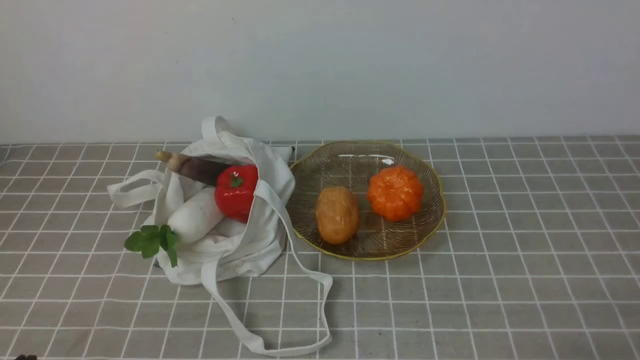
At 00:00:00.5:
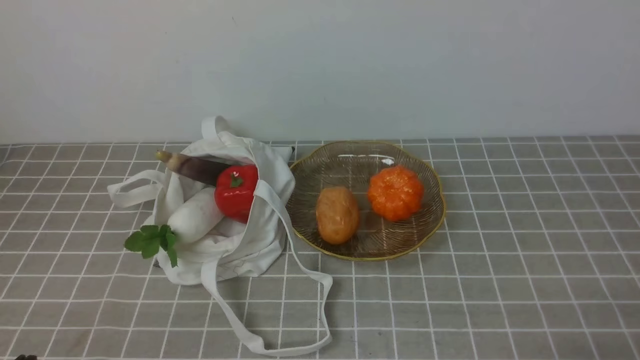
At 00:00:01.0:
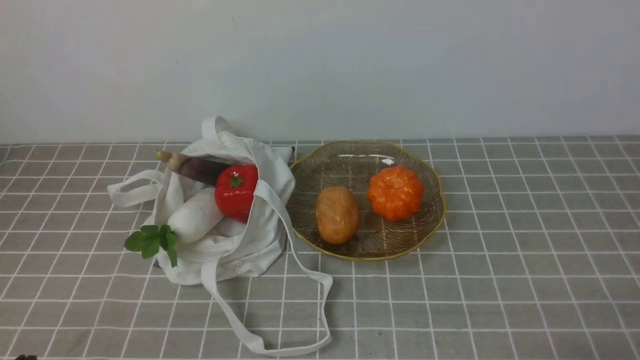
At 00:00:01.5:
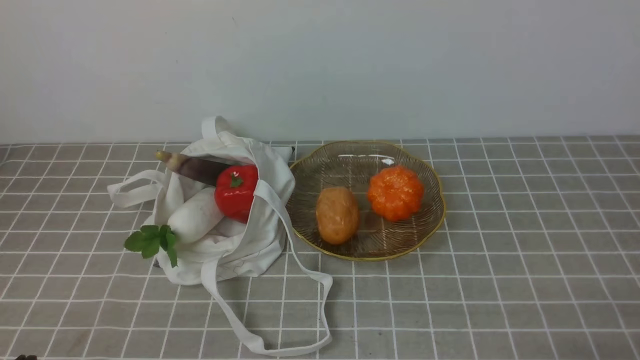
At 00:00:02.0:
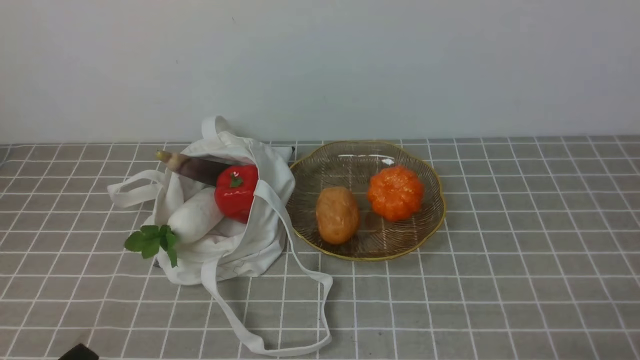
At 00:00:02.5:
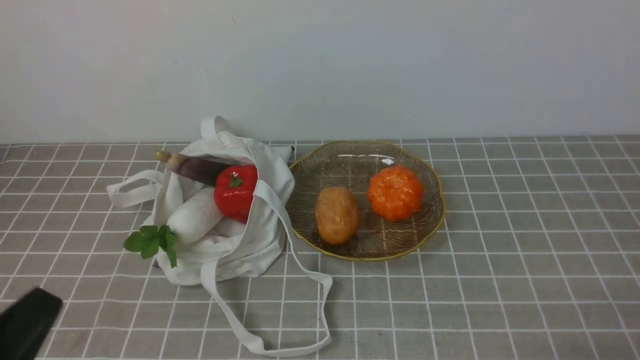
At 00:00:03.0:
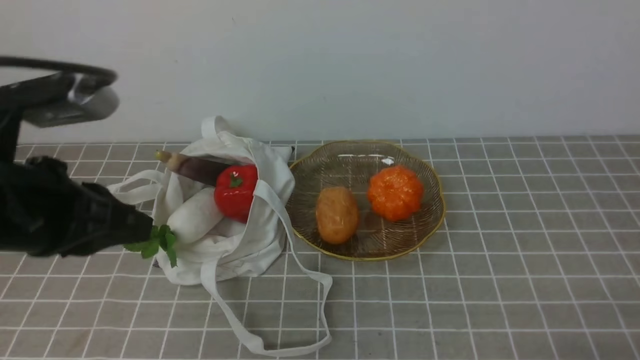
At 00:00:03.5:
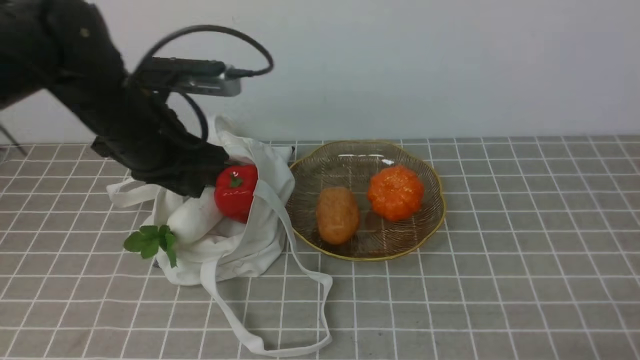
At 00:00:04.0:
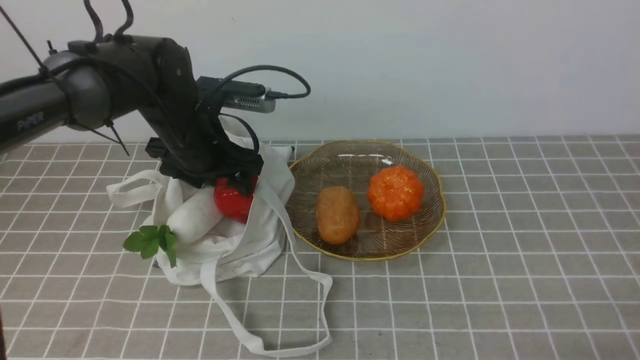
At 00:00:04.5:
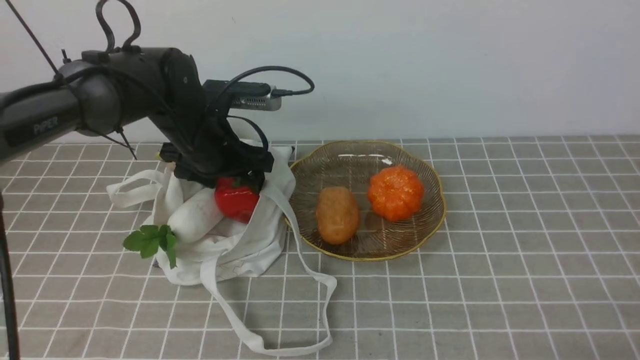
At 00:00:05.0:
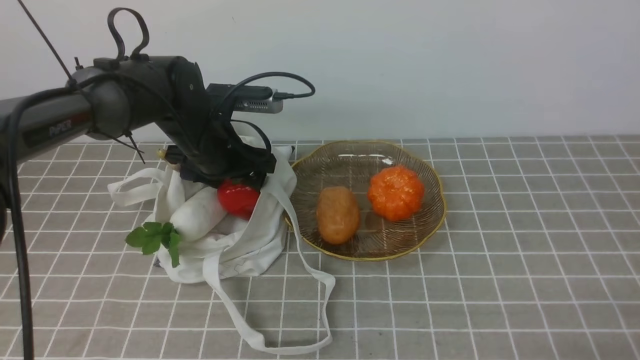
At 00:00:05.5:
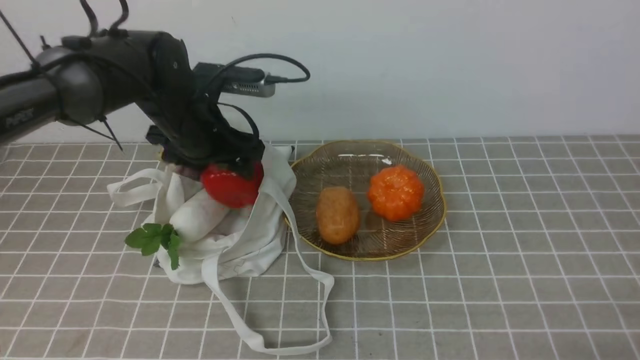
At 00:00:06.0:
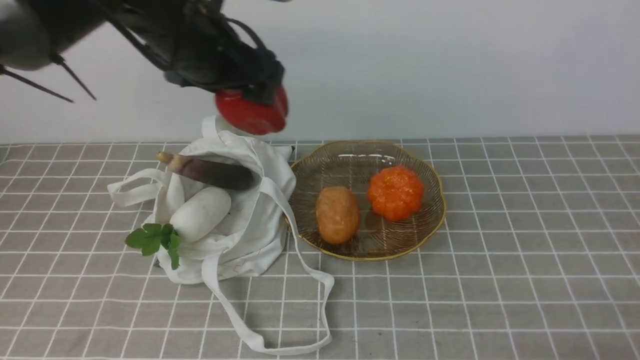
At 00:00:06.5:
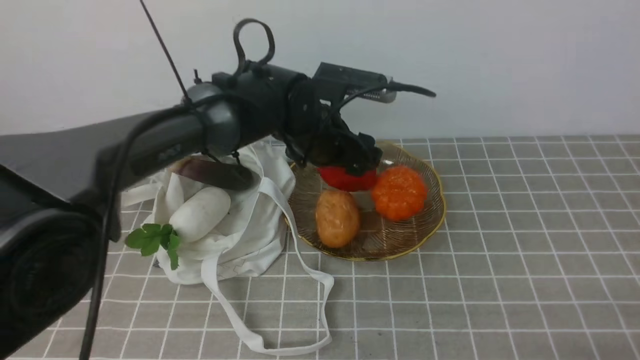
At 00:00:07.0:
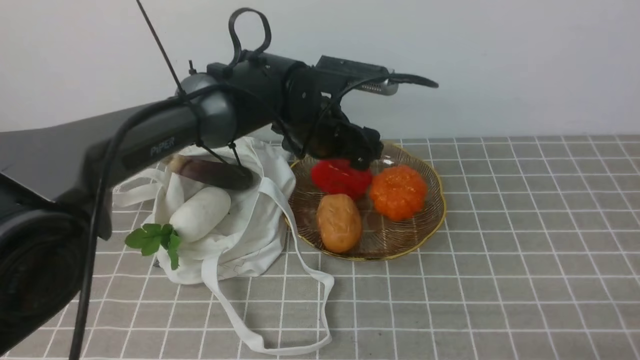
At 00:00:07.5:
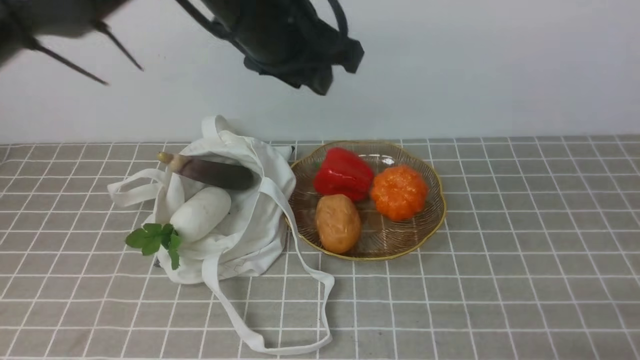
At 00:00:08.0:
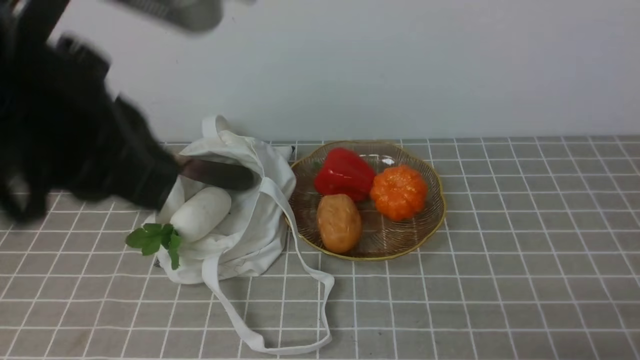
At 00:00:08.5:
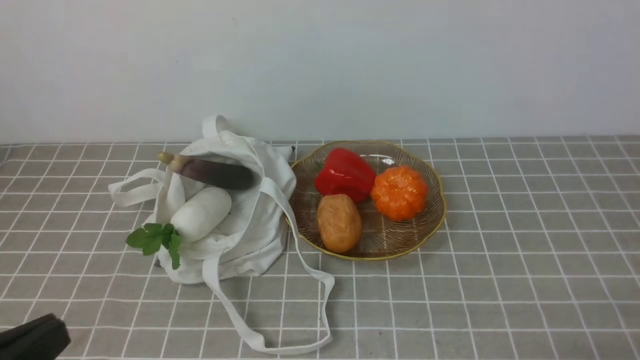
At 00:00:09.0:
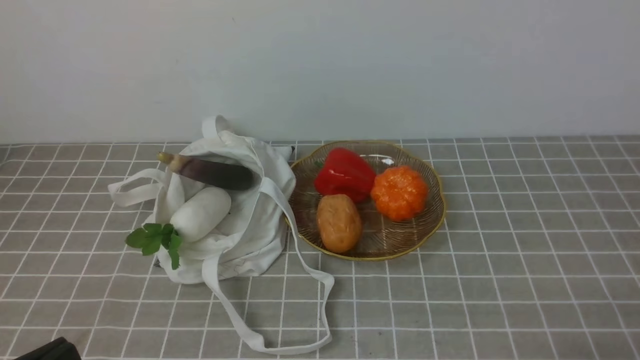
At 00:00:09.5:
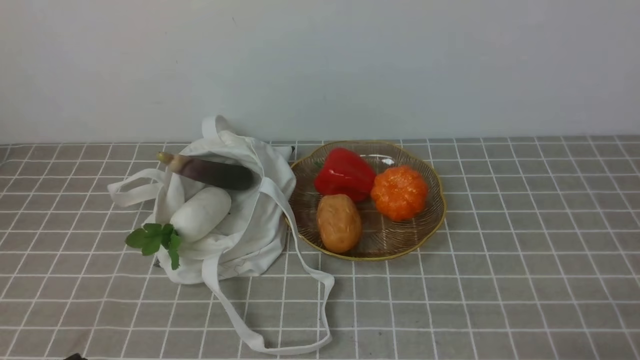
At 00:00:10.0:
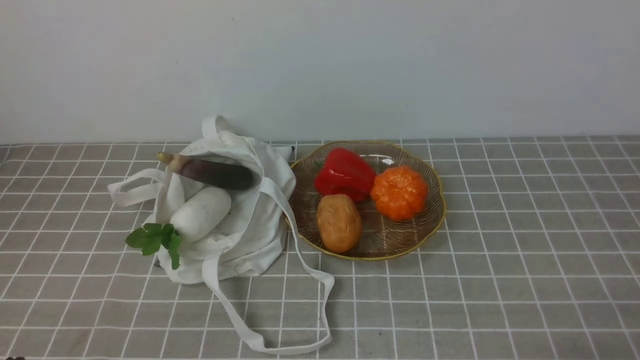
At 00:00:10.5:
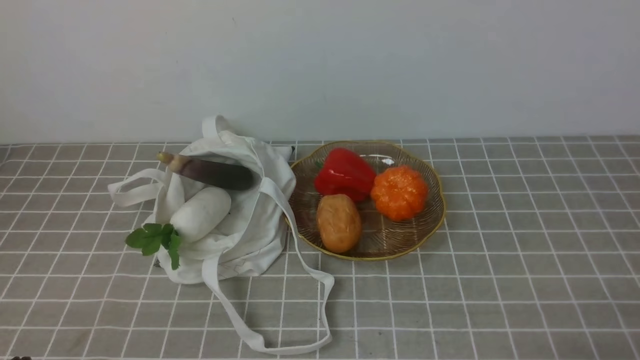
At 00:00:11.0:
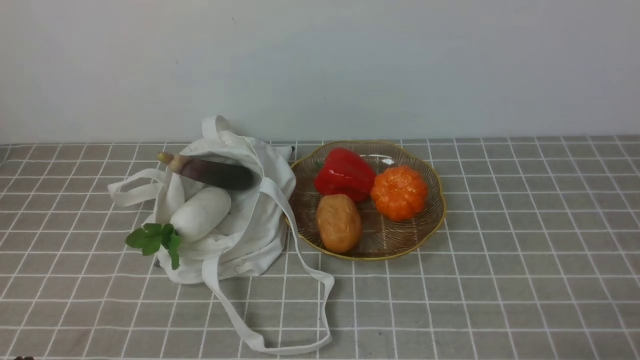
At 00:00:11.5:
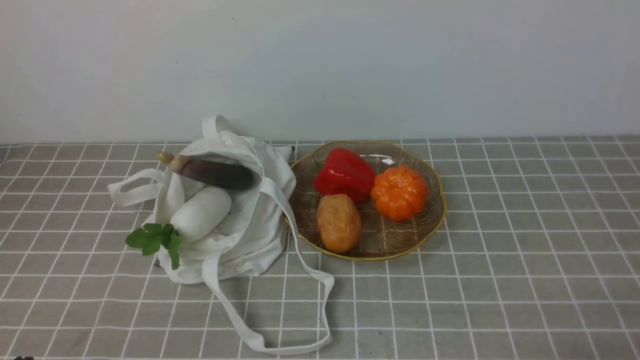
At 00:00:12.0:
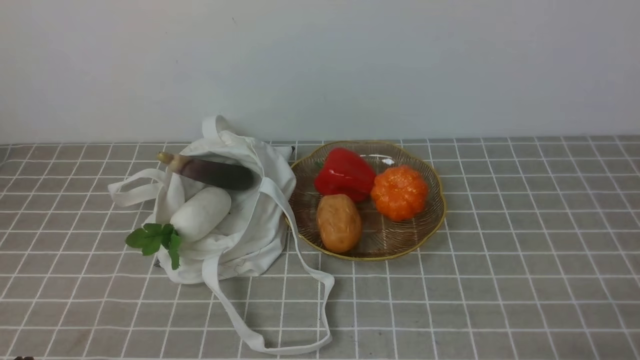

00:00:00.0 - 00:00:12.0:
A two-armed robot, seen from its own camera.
Task of the whole recording: take vegetables from bag on grey coffee tablecloth place on plate.
Step, 00:00:00.0 - 00:00:04.5: Grasp the bell pepper with left gripper.
Step, 00:00:05.5 - 00:00:07.0: Place the bell pepper on the plate with left gripper.
00:00:02.0 - 00:00:04.0: The left gripper heads forward, covering approximately 35 cm, and opens.
00:00:04.0 - 00:00:06.0: The left gripper heads upward, covering about 10 cm.
00:00:06.0 - 00:00:08.0: The left gripper goes some 25 cm backward and upward, and closes up.
00:00:08.0 - 00:00:10.0: The left gripper is displaced downward, backward and to the left by approximately 30 cm.

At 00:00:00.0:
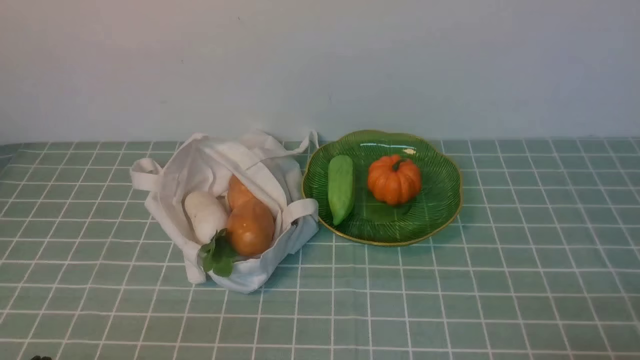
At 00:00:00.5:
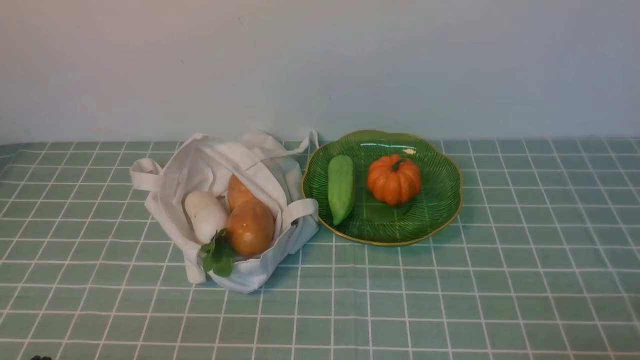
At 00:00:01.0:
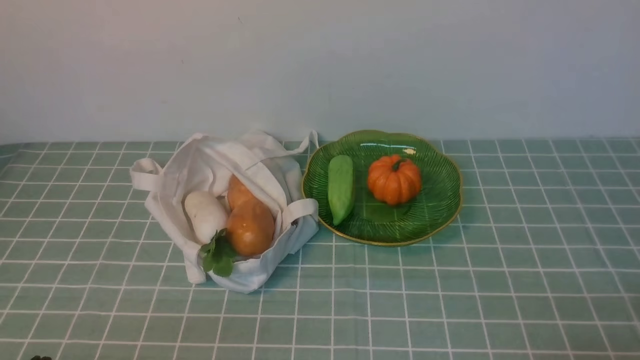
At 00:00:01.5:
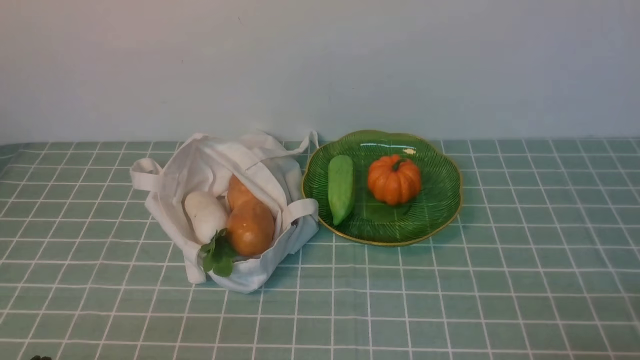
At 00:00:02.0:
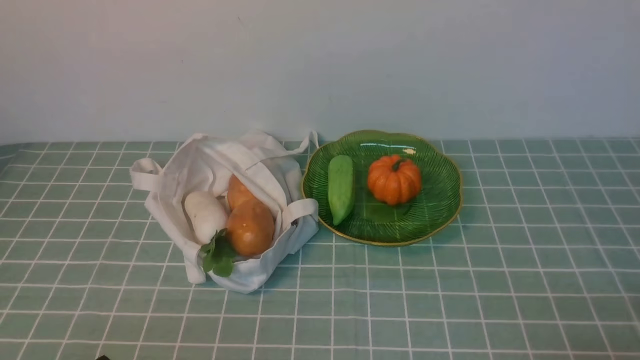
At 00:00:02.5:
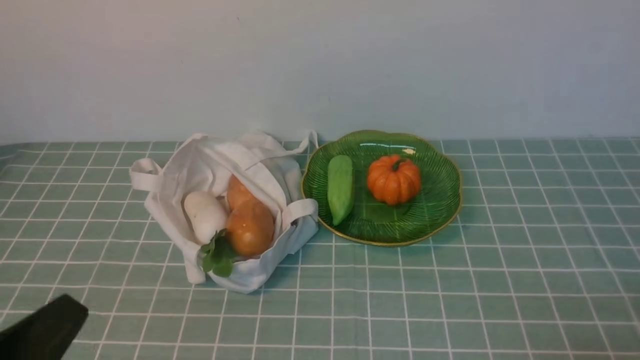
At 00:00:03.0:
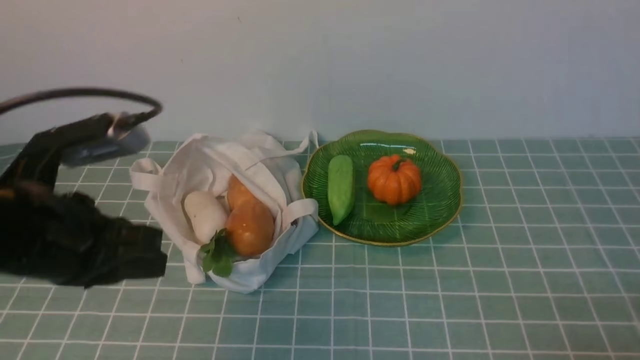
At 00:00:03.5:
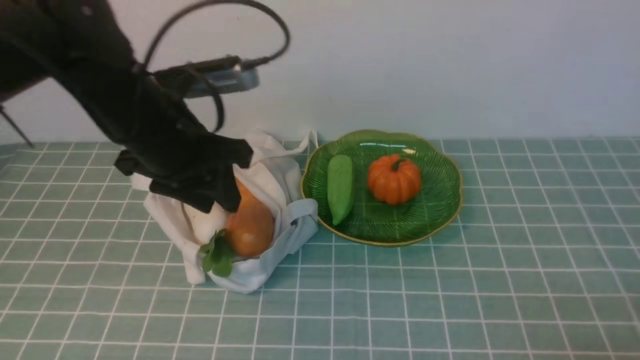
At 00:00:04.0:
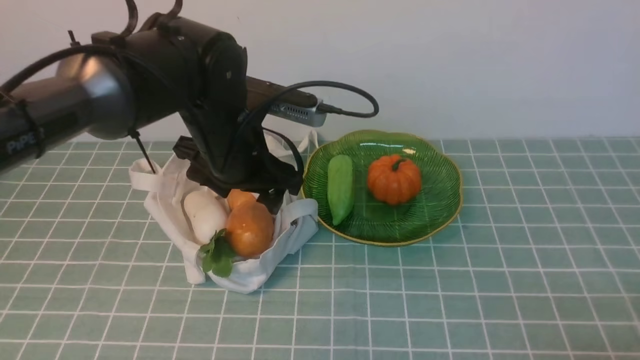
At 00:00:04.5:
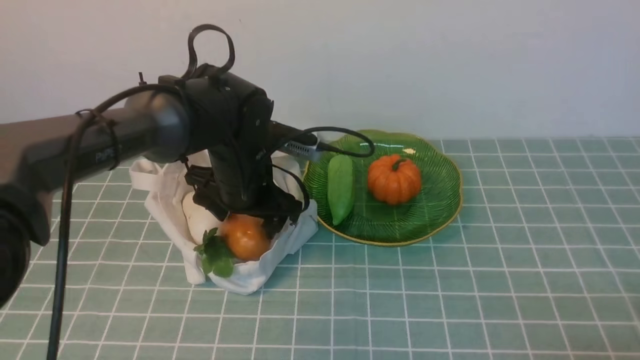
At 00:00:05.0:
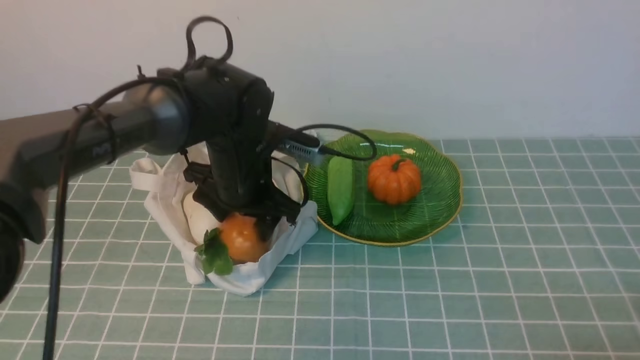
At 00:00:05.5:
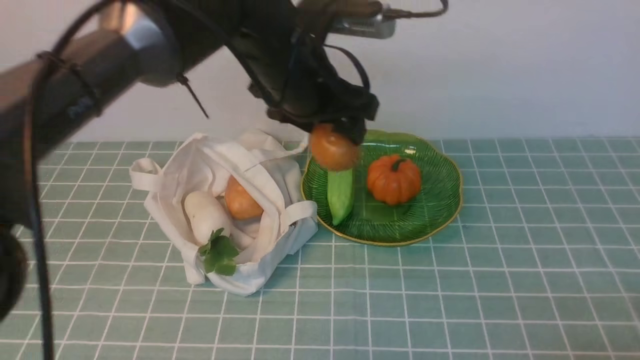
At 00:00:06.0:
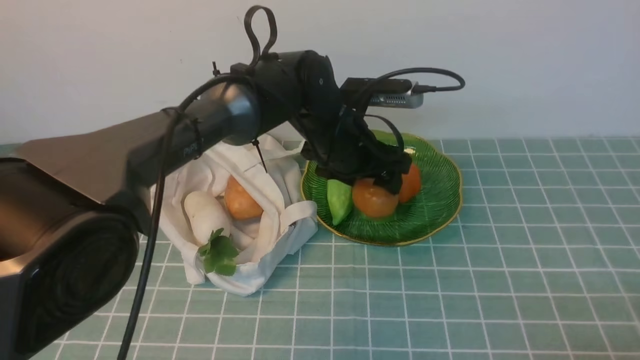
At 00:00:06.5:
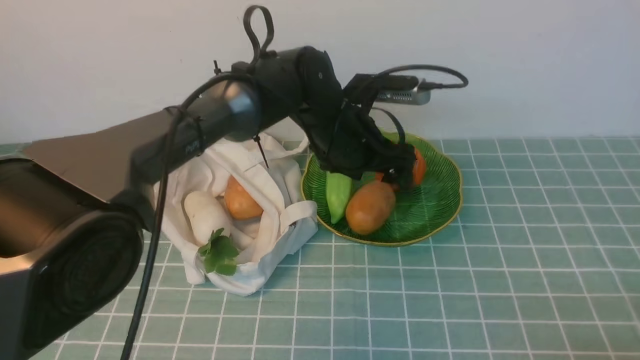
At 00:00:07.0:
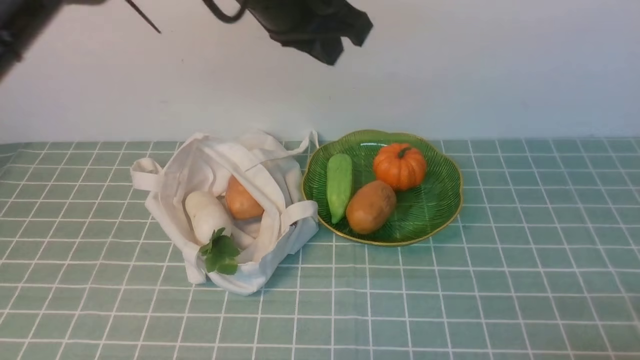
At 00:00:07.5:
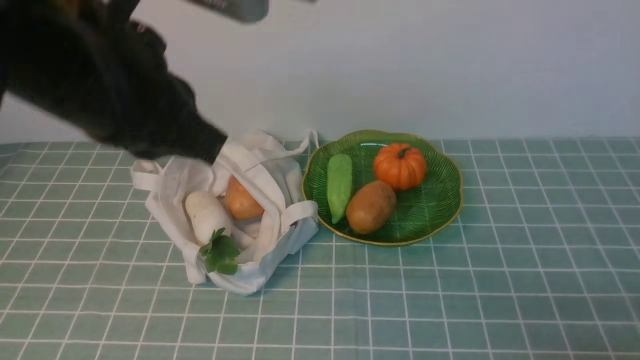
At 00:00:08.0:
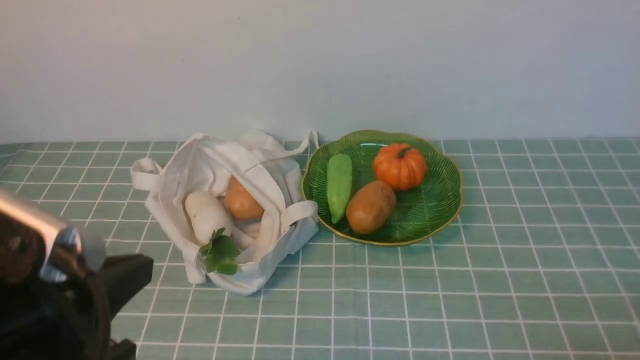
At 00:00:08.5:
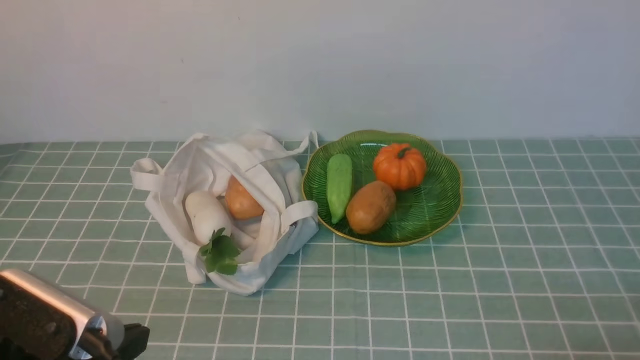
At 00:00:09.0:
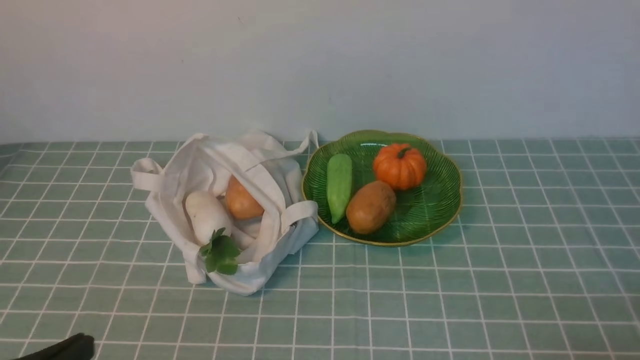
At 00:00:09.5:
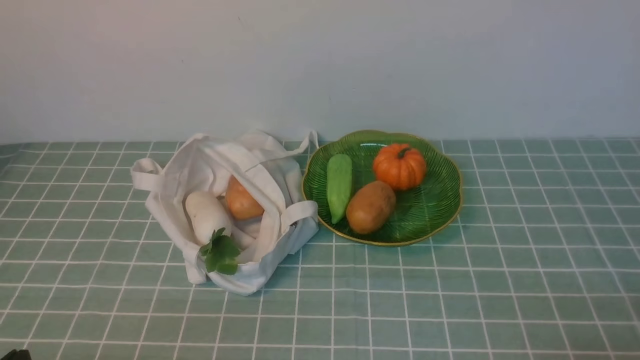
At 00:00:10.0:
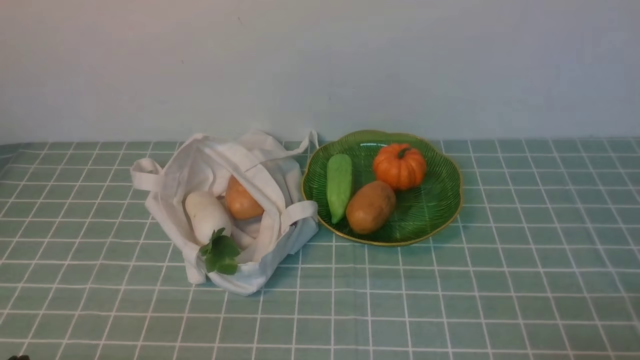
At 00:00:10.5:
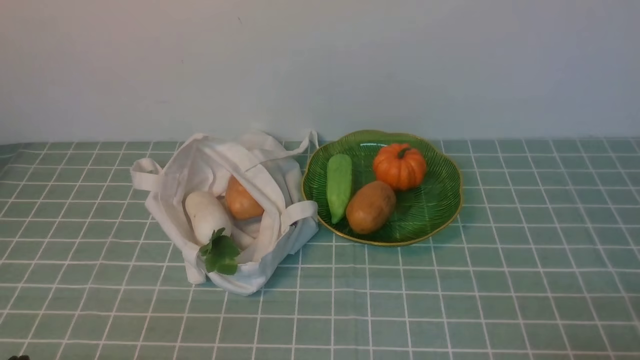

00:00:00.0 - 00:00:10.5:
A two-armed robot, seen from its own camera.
Task of the whole recording: take vegetables from cloth bag on blue coffee tablecloth place on plate.
Step, 00:00:00.0 - 00:00:04.5: Grasp the potato with left gripper.
Step, 00:00:05.0 - 00:00:06.5: Place the potato on the plate with left gripper.
00:00:02.0 - 00:00:04.0: The left gripper is displaced forward and to the right by approximately 35 cm, and opens its fingers.
00:00:04.0 - 00:00:06.5: The left gripper is displaced to the right and forward by some 15 cm.
00:00:06.5 - 00:00:08.5: The left gripper heads backward and to the left, covering approximately 40 cm, and closes its fingers.
00:00:08.5 - 00:00:10.5: The left gripper is displaced downward and to the left by roughly 10 cm.